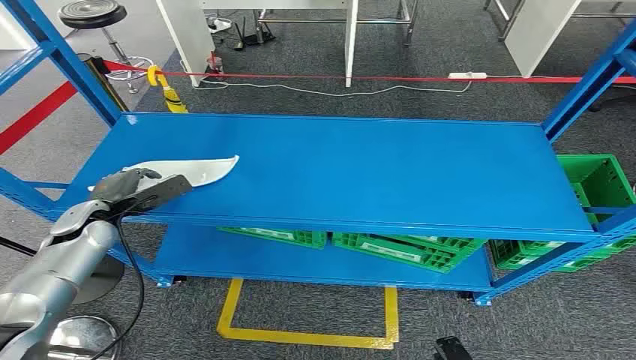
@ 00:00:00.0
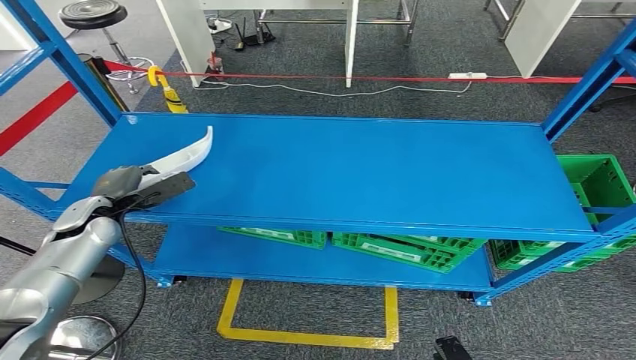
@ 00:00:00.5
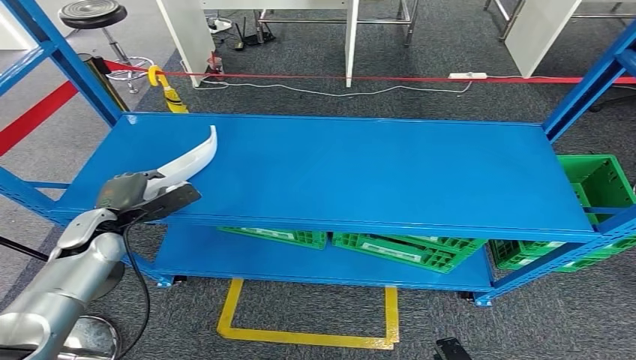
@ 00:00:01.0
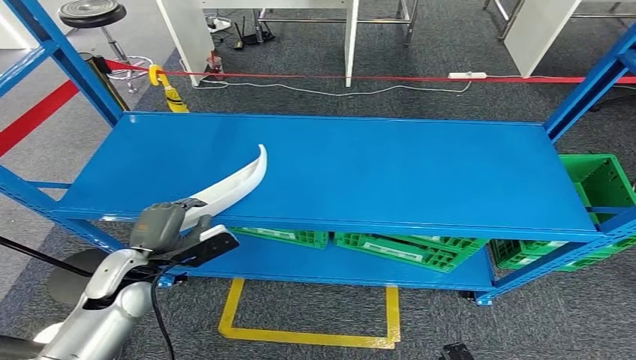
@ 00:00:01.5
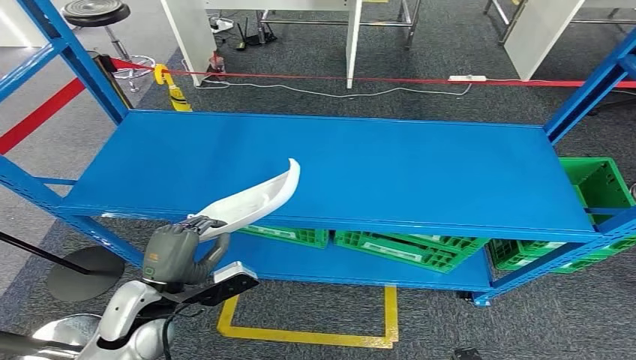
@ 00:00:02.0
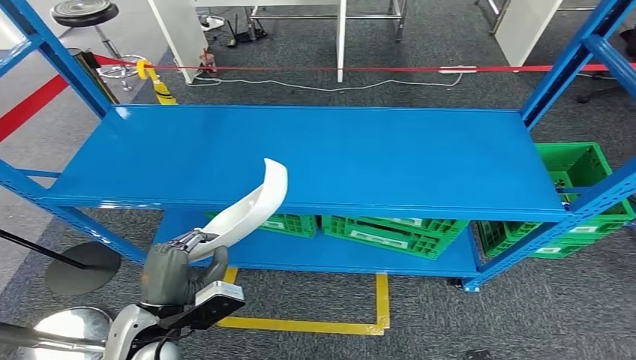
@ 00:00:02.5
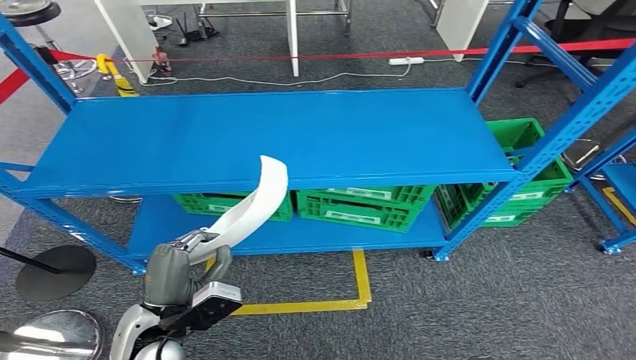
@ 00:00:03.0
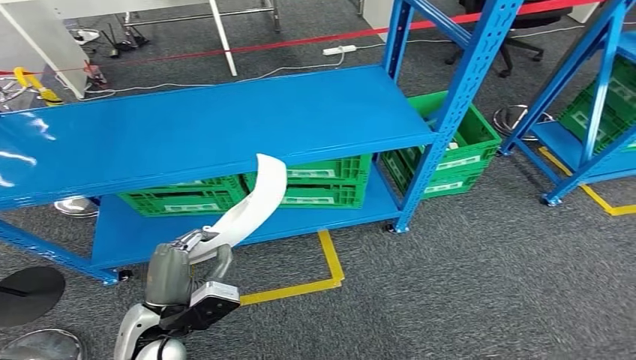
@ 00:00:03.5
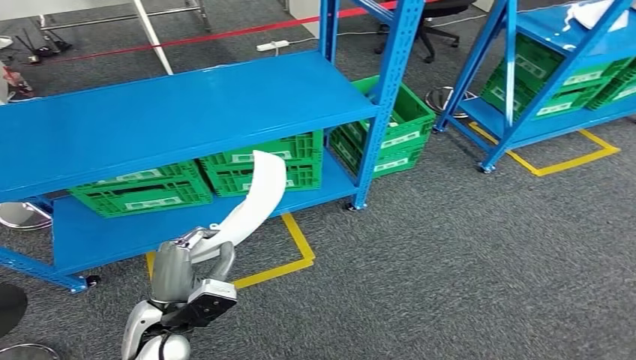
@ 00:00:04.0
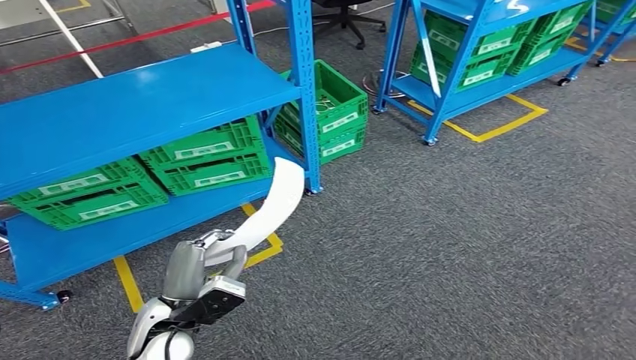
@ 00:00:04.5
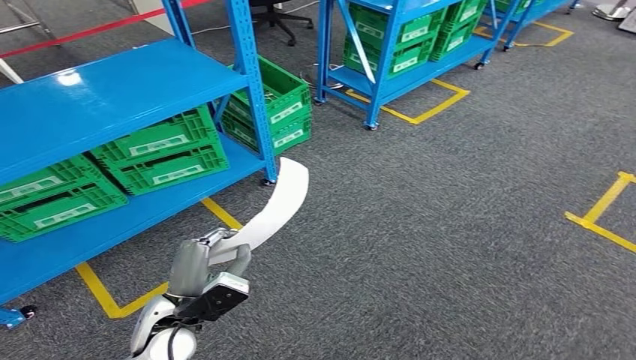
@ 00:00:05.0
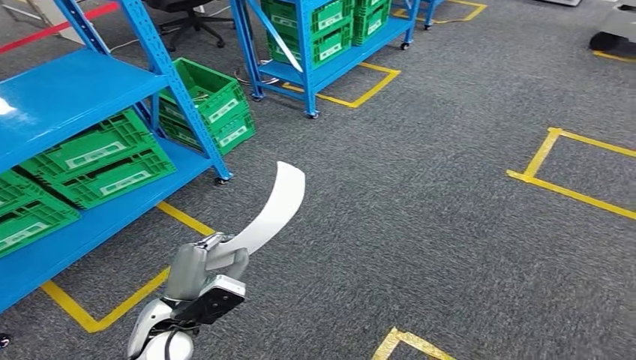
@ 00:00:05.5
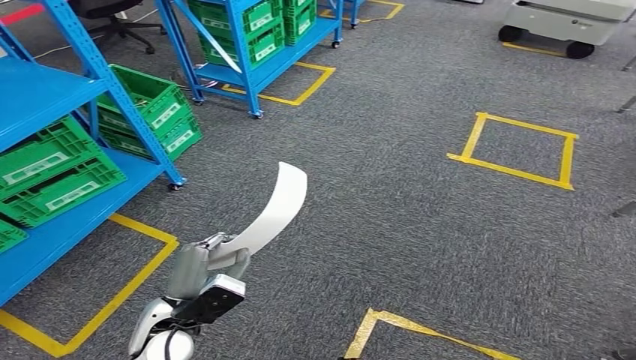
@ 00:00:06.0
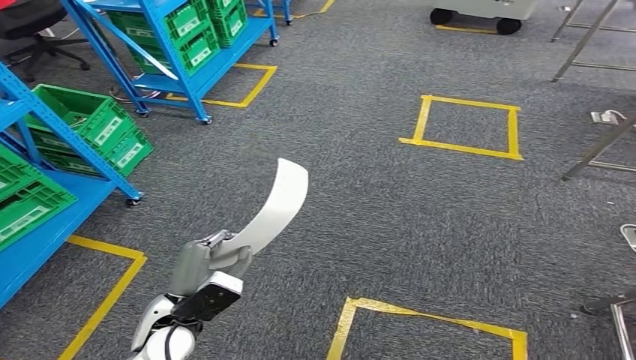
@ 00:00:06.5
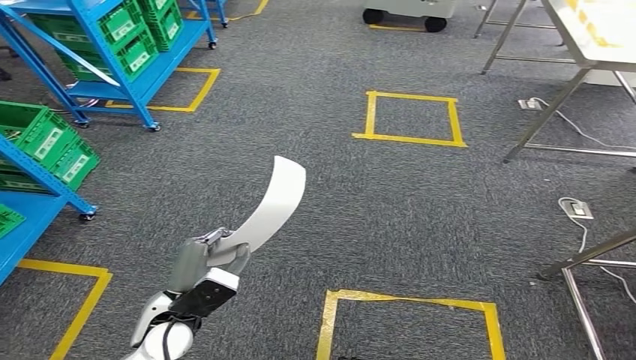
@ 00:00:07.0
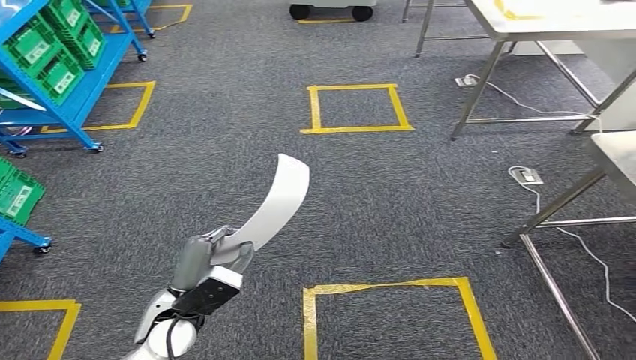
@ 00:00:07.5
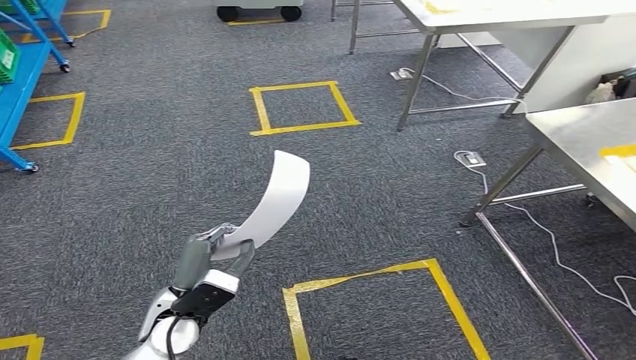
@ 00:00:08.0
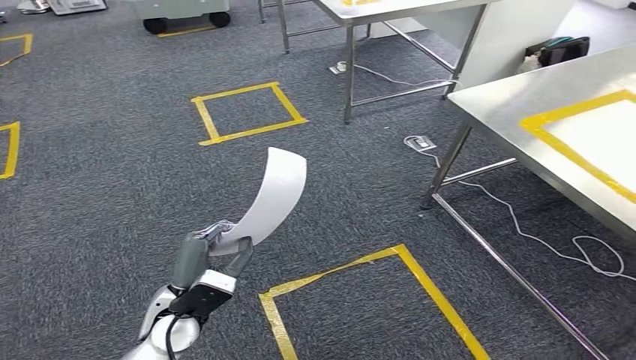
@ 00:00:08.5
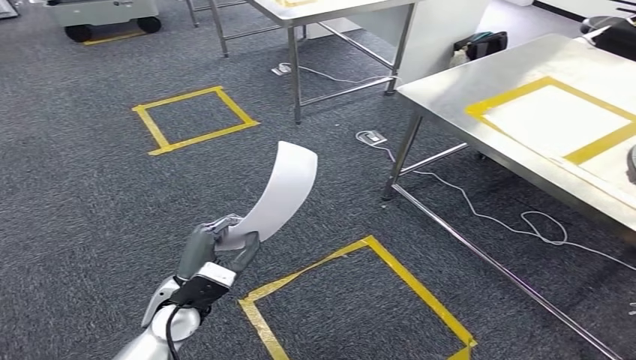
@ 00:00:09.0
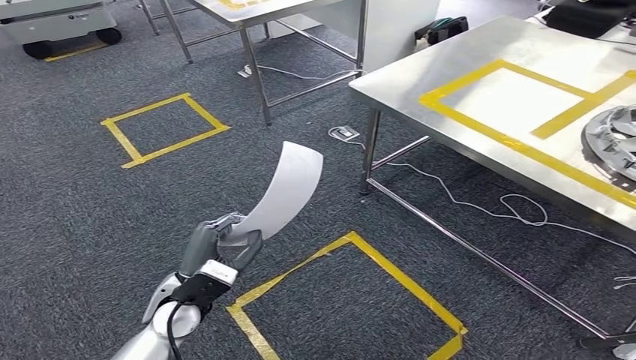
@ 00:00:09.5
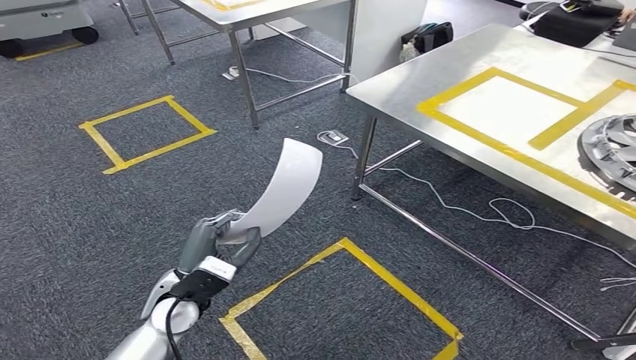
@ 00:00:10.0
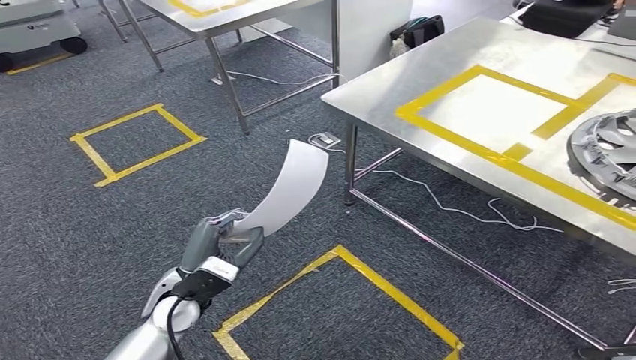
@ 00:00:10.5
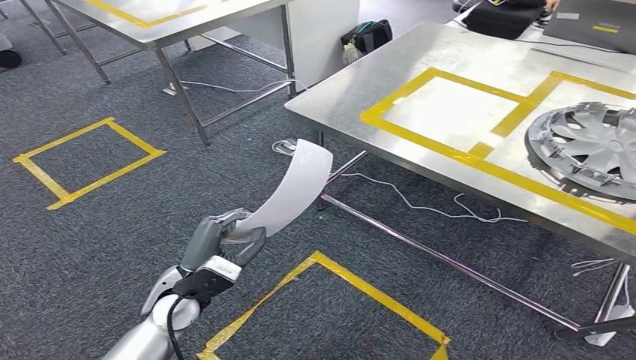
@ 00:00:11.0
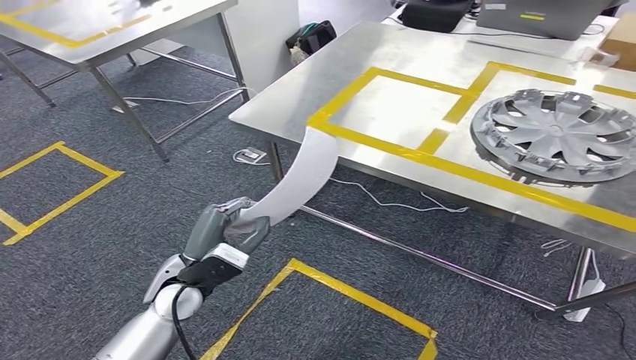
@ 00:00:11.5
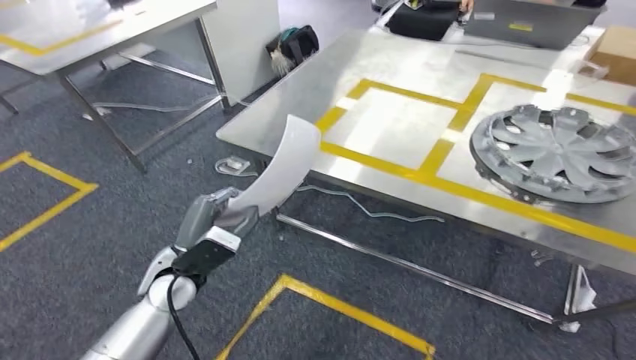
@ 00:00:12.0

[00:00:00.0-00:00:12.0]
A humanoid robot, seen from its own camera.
Step, 00:00:00.0 to 00:00:02.5: Pick up the small component from the shelf.

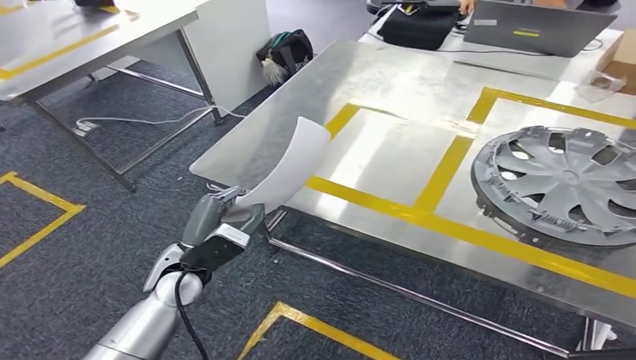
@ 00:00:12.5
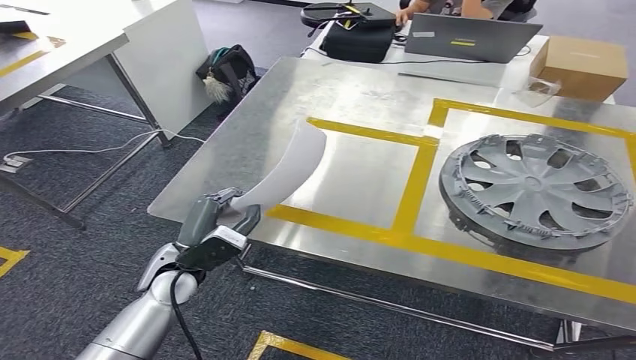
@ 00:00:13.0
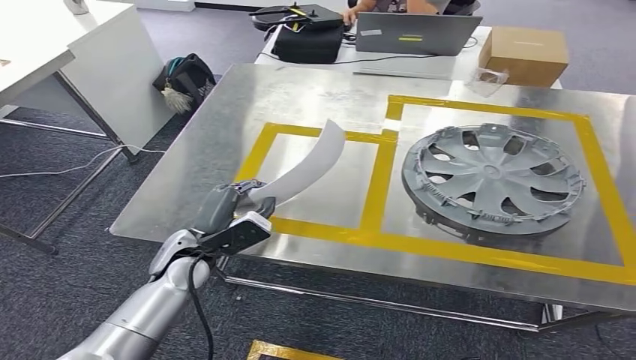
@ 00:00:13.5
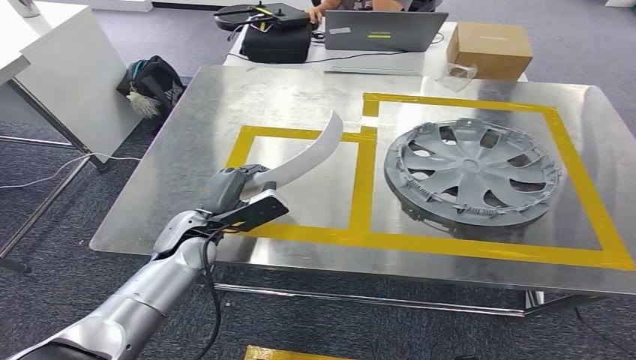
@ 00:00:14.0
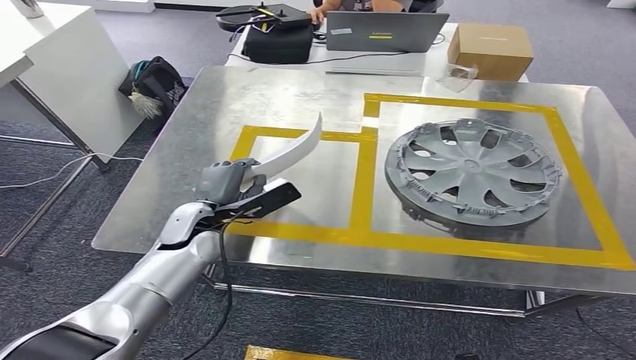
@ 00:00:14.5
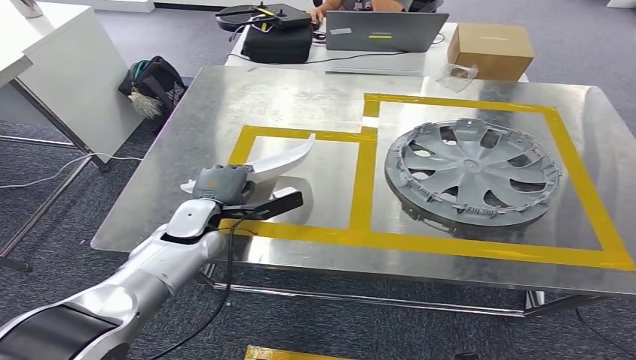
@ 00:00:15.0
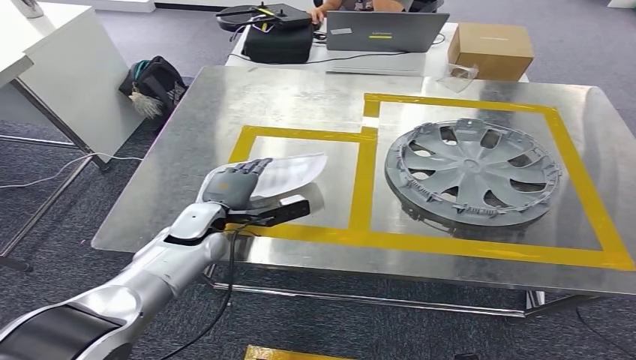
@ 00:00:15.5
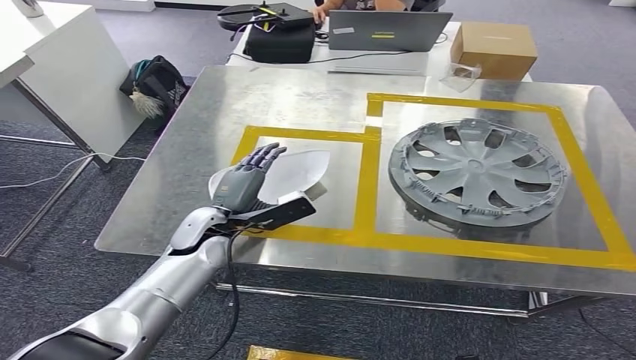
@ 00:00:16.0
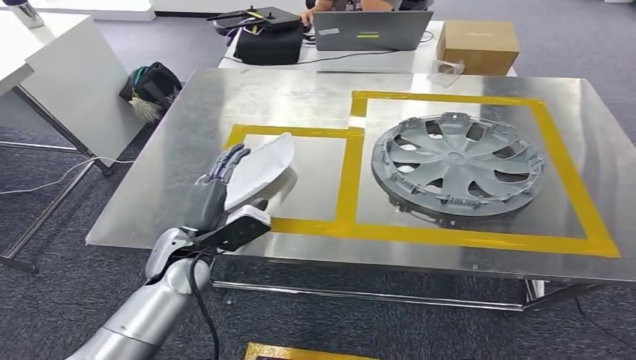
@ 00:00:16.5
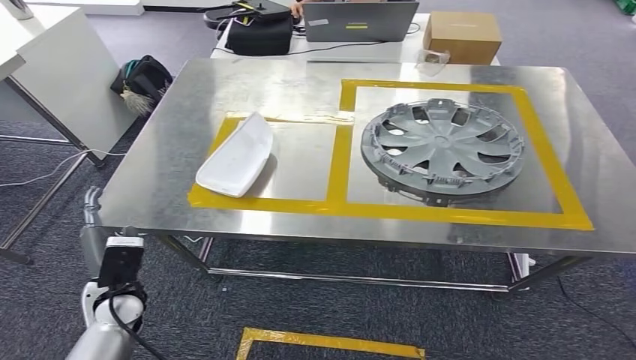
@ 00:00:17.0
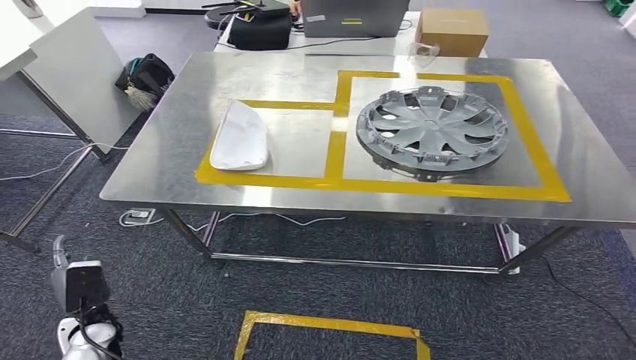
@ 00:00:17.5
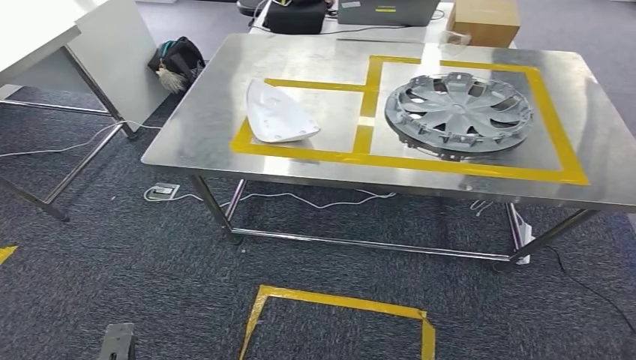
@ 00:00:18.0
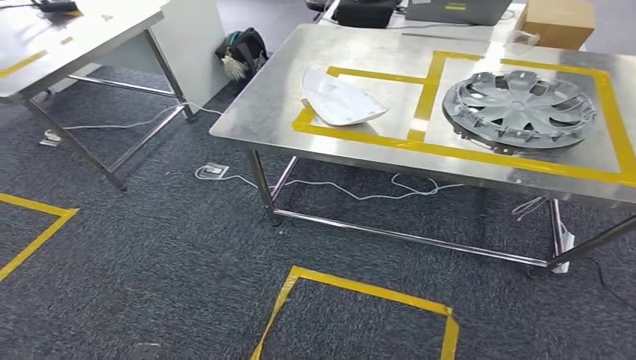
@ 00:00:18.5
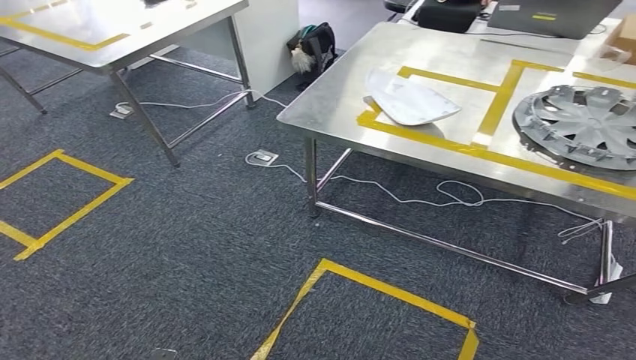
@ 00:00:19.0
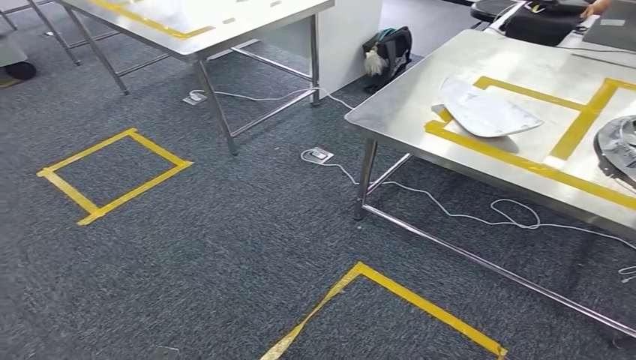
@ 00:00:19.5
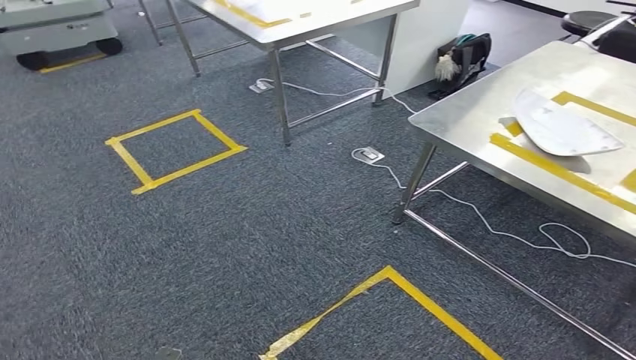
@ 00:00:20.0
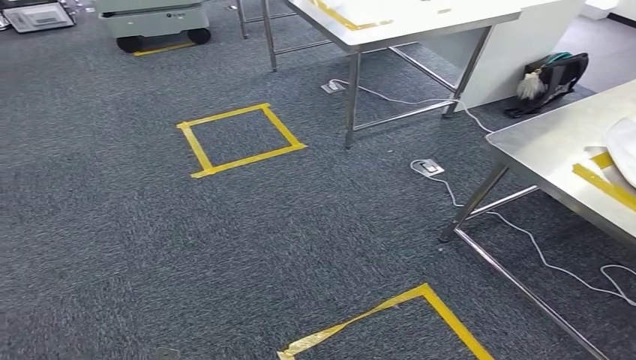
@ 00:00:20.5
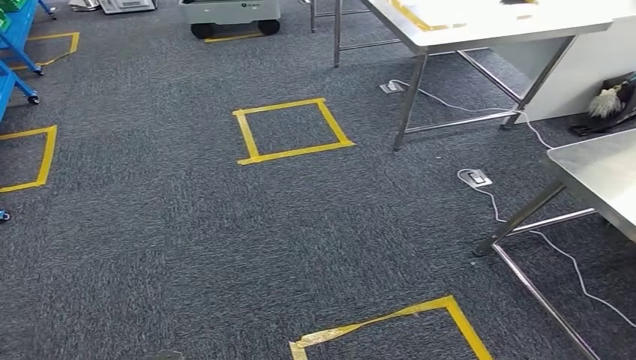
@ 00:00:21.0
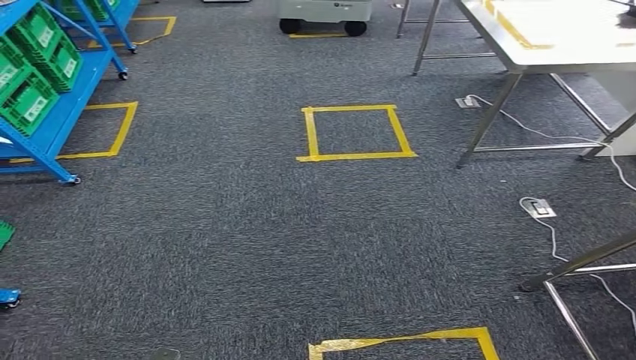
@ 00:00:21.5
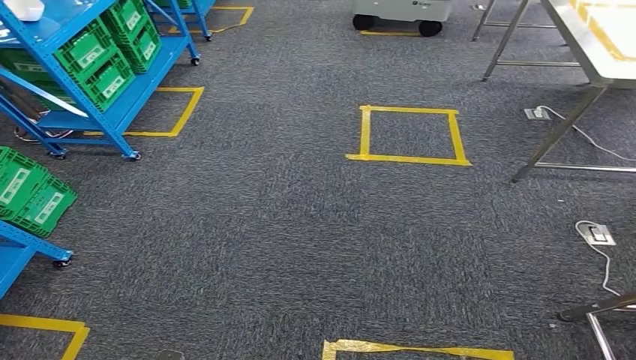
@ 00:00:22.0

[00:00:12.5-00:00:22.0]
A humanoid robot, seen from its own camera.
Step, 00:00:13.0 to 00:00:17.0: Insert the small component into the corresponding slot on the workbench.
